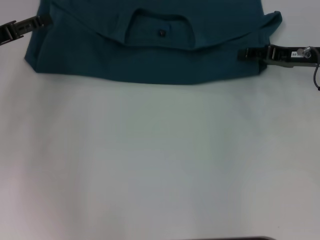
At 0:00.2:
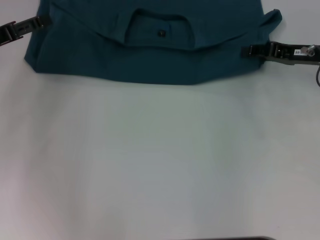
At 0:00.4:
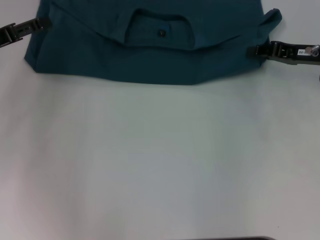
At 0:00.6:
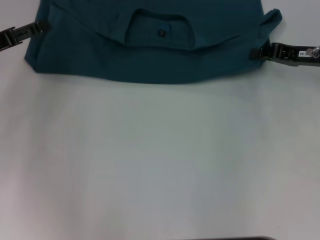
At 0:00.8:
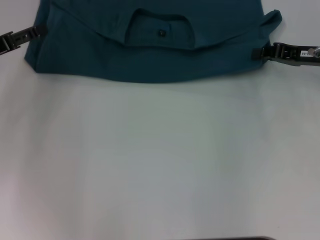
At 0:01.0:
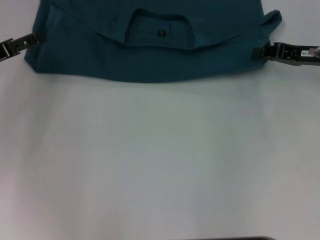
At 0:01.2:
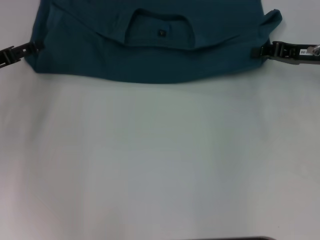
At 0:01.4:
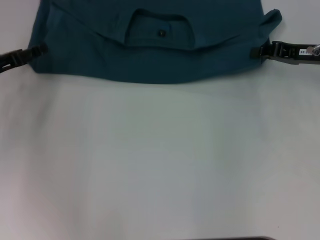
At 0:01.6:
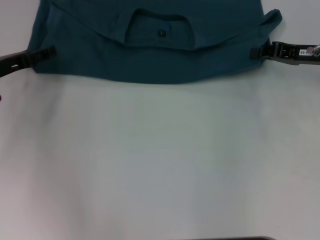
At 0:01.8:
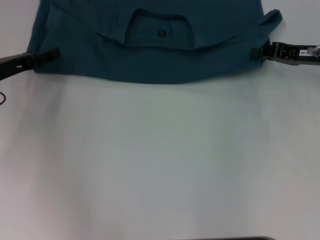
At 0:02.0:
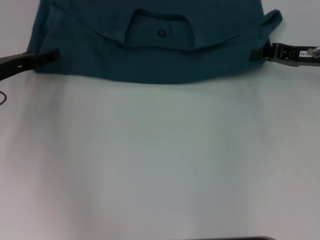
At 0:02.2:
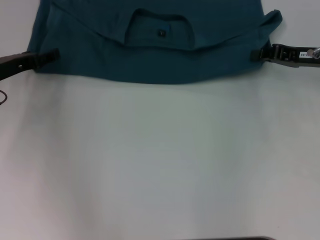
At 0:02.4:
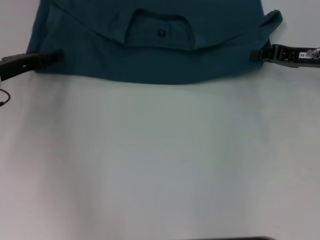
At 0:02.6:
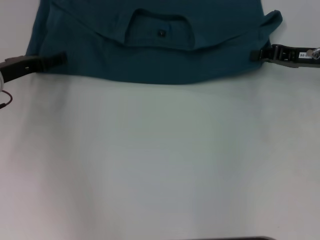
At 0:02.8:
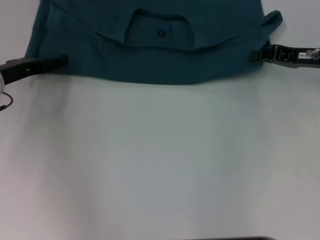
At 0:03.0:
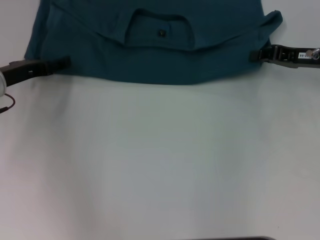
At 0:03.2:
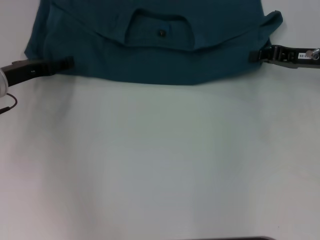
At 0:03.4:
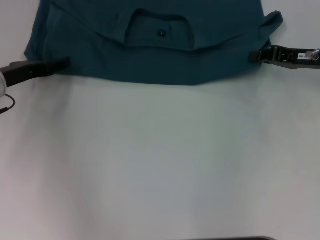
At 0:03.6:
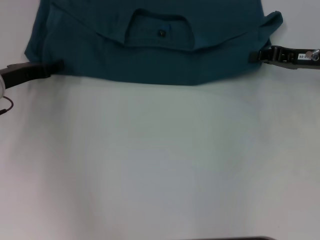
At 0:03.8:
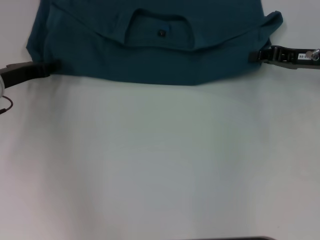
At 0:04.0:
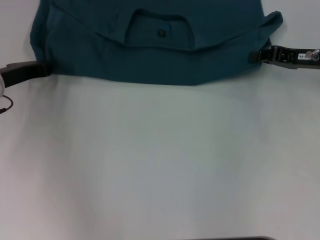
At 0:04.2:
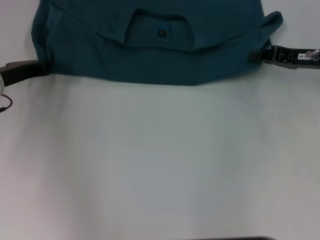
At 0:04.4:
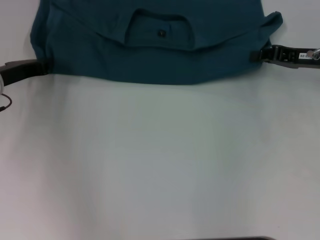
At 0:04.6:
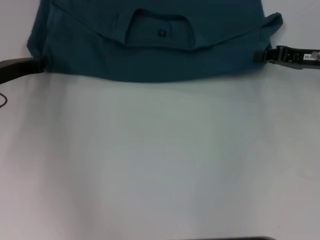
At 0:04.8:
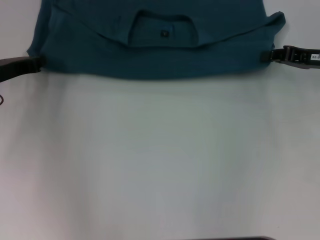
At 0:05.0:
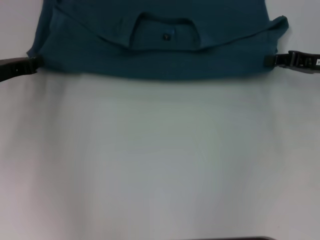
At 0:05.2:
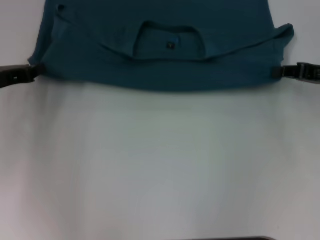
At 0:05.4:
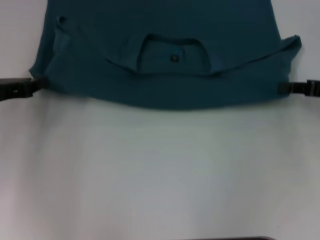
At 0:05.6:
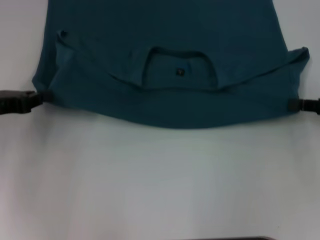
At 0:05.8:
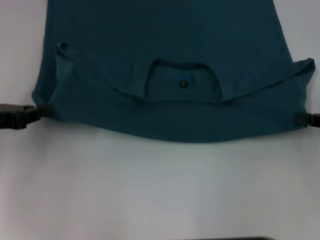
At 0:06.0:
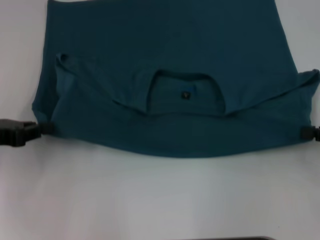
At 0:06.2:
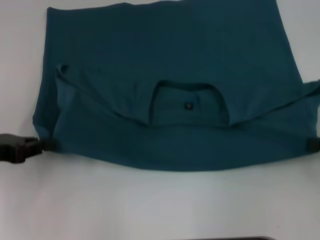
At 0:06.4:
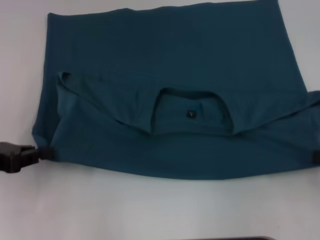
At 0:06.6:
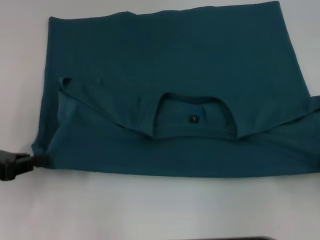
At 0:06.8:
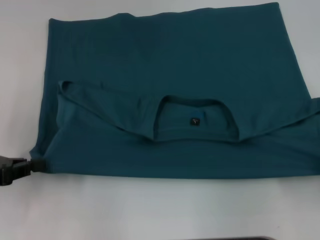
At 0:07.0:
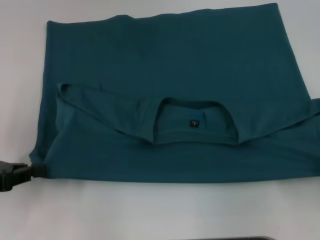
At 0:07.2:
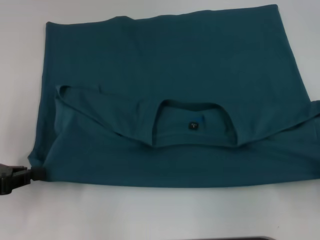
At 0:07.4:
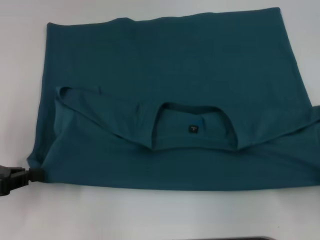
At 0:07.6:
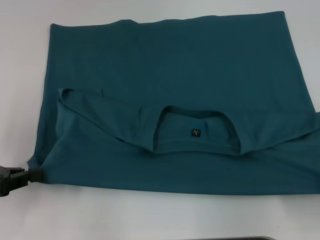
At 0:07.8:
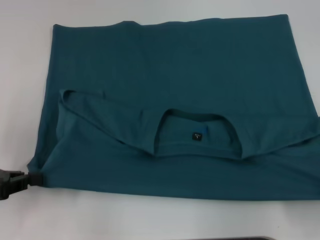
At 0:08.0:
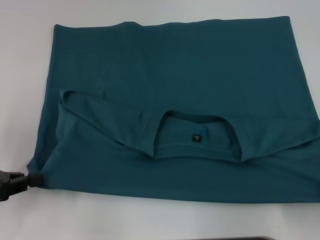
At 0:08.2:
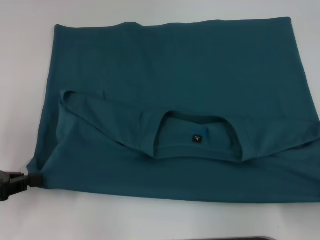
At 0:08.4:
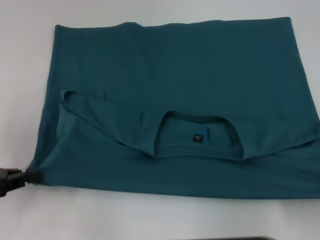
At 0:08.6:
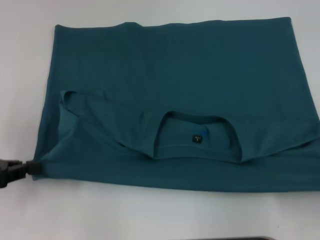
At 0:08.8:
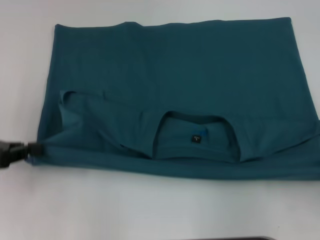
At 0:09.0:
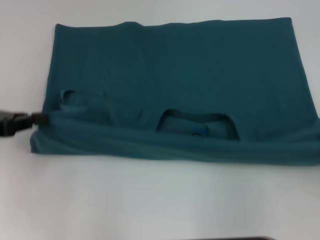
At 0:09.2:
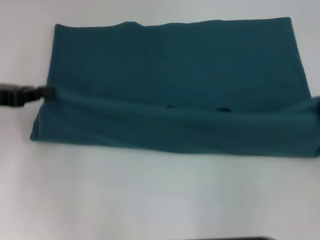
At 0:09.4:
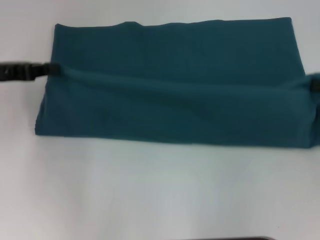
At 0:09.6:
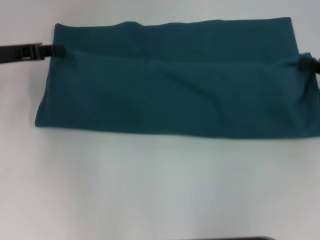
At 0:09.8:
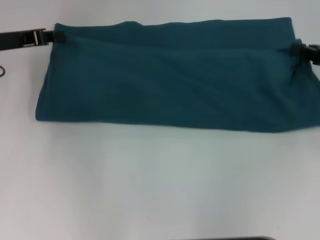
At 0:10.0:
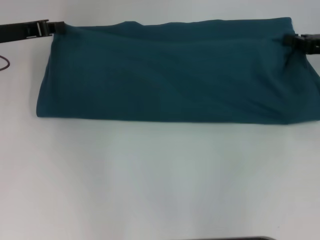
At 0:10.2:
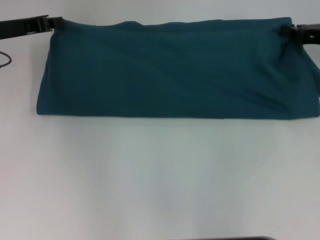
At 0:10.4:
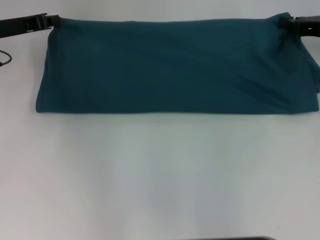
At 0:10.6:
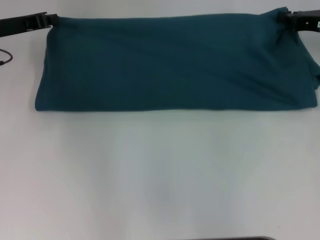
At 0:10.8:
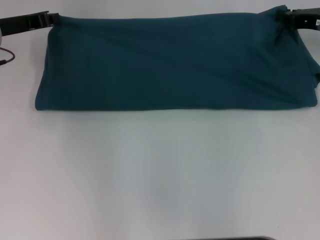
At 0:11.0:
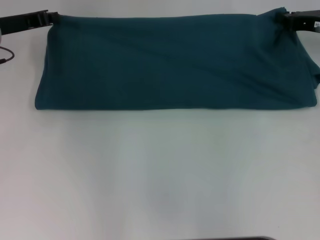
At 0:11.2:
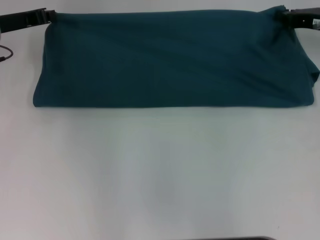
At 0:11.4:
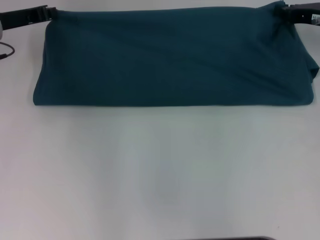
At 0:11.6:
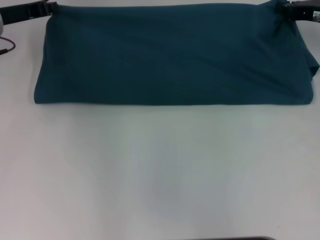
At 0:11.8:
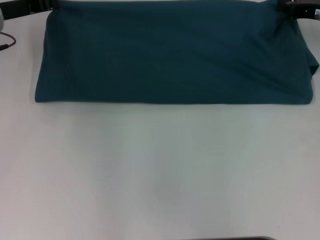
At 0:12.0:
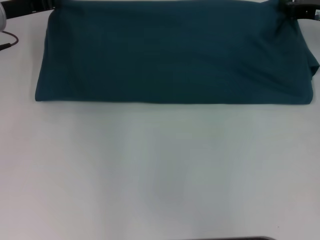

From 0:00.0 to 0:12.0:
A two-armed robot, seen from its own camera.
Step, from 0:00.0 to 0:08.2: Pull the clothes with your left hand.
Step, from 0:00.0 to 0:08.2: Pull the clothes with your right hand.
From 0:00.0 to 0:01.6: The right gripper closes.
From 0:01.6 to 0:03.0: The grippers move only a little.
From 0:03.0 to 0:04.4: The left gripper closes up.
From 0:04.4 to 0:06.0: The right gripper shifts roughly 15 cm backward and to the right. Meanwhile the left gripper goes about 10 cm backward.
From 0:06.0 to 0:07.6: The left gripper shifts roughly 5 cm backward. The right gripper moves backward, roughly 10 cm.
From 0:07.6 to 0:09.0: The right gripper changes place by roughly 5 cm, while the left gripper travels forward by roughly 5 cm.
From 0:09.0 to 0:10.4: The left gripper shifts about 15 cm forward and to the right; the right gripper travels forward by roughly 20 cm.
From 0:10.4 to 0:12.0: The grippers move only a little.

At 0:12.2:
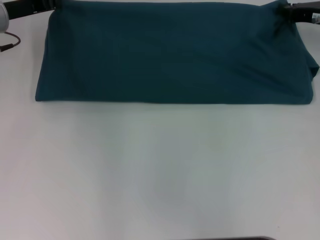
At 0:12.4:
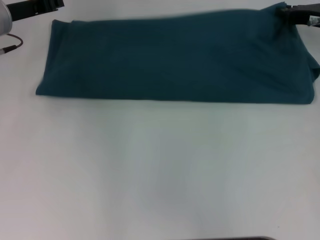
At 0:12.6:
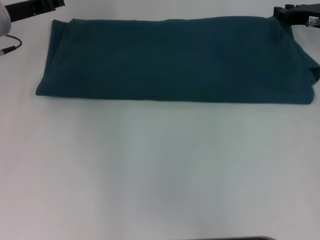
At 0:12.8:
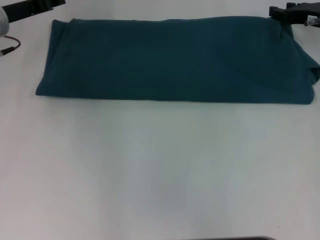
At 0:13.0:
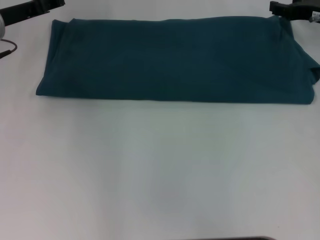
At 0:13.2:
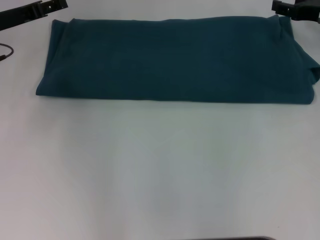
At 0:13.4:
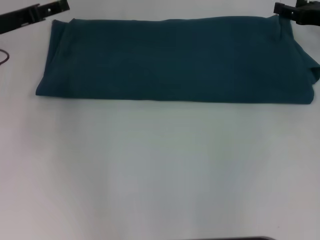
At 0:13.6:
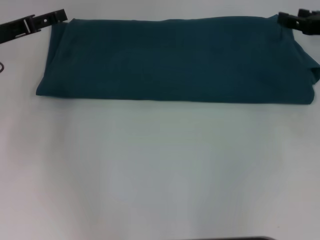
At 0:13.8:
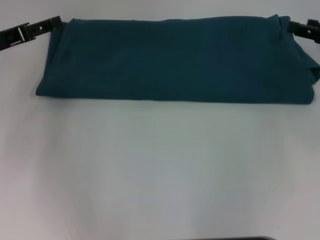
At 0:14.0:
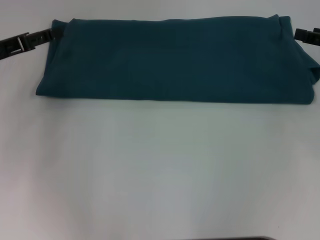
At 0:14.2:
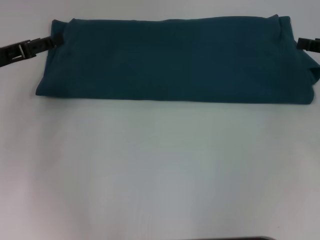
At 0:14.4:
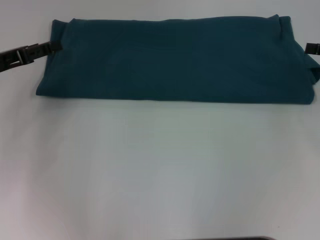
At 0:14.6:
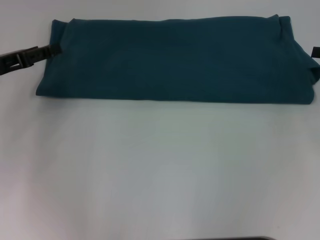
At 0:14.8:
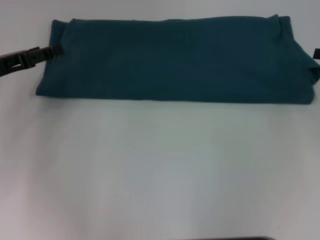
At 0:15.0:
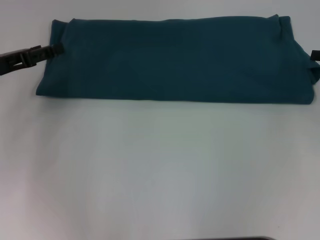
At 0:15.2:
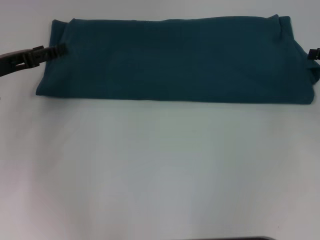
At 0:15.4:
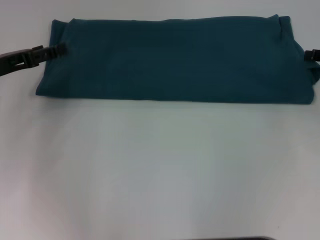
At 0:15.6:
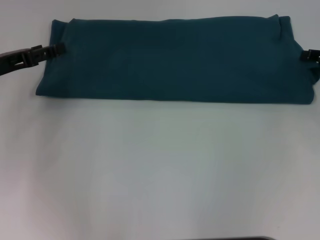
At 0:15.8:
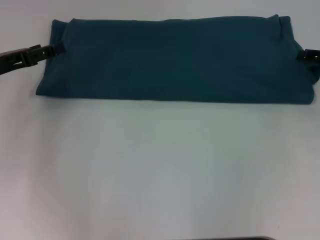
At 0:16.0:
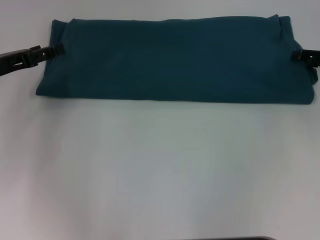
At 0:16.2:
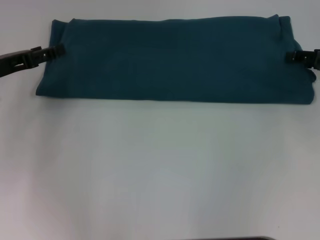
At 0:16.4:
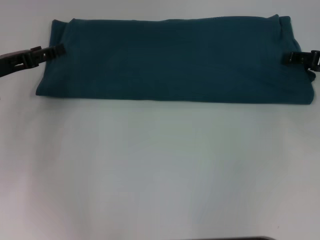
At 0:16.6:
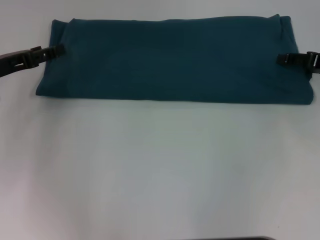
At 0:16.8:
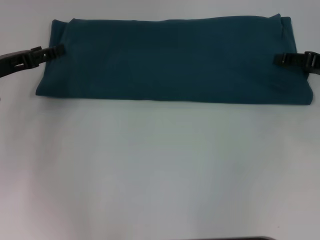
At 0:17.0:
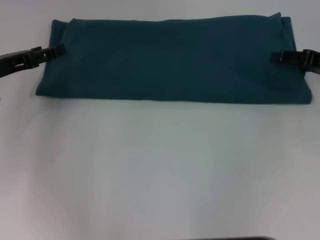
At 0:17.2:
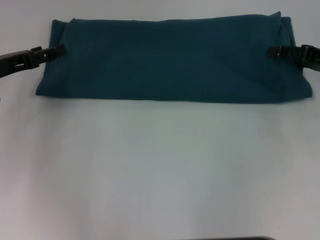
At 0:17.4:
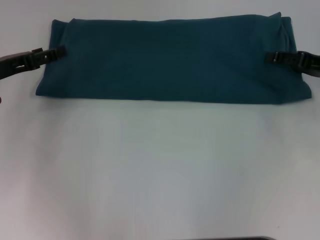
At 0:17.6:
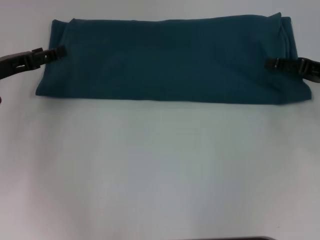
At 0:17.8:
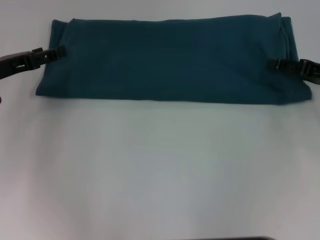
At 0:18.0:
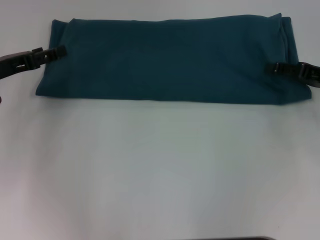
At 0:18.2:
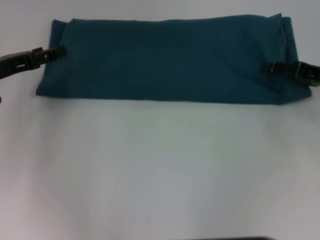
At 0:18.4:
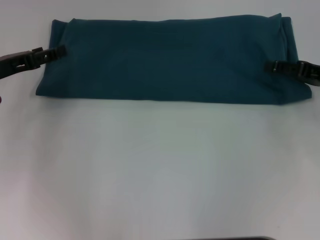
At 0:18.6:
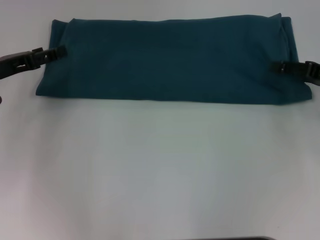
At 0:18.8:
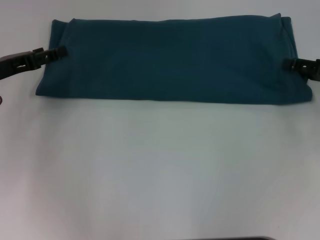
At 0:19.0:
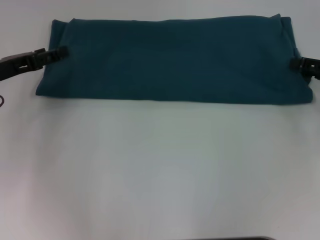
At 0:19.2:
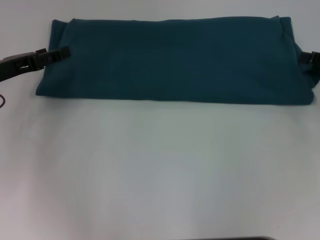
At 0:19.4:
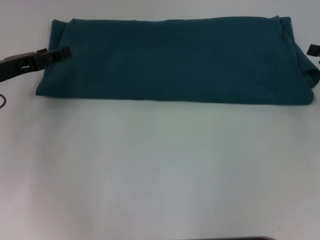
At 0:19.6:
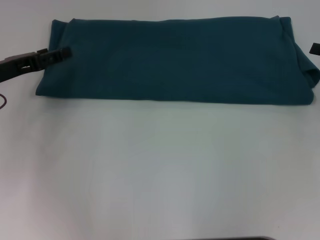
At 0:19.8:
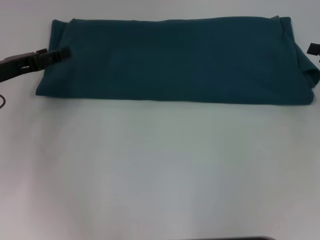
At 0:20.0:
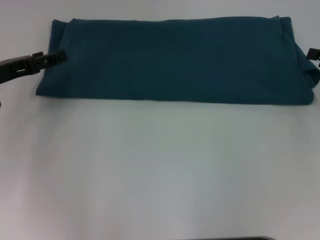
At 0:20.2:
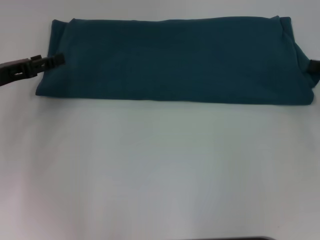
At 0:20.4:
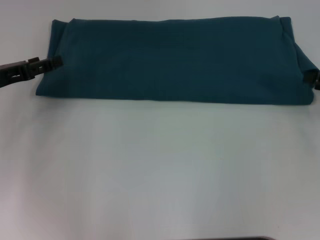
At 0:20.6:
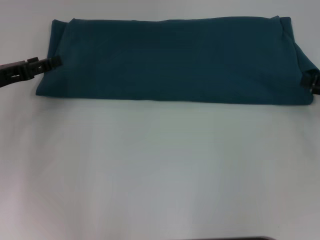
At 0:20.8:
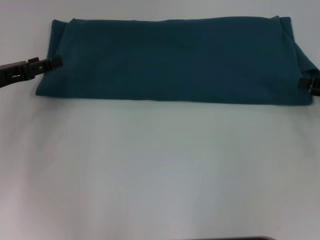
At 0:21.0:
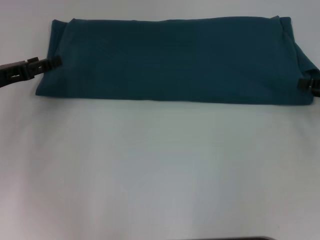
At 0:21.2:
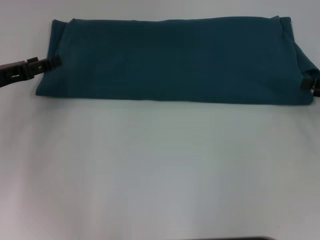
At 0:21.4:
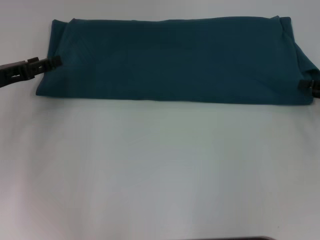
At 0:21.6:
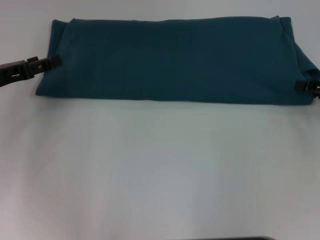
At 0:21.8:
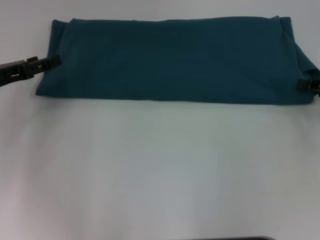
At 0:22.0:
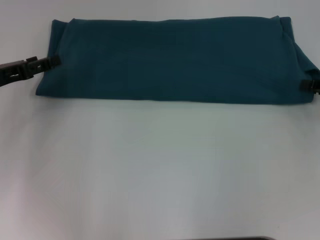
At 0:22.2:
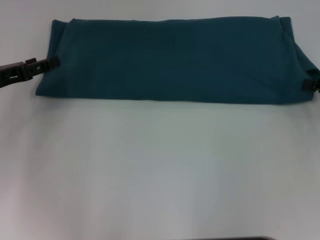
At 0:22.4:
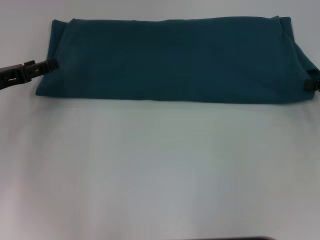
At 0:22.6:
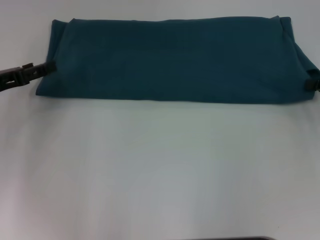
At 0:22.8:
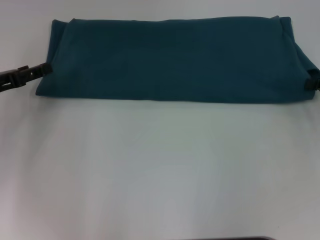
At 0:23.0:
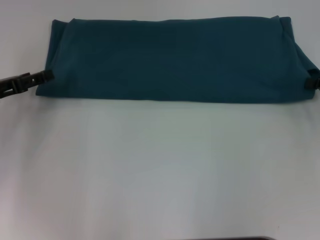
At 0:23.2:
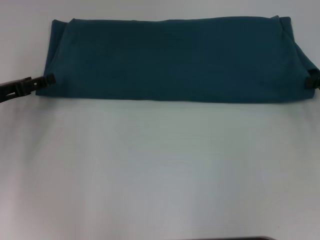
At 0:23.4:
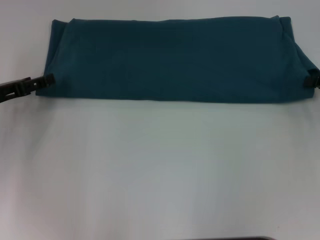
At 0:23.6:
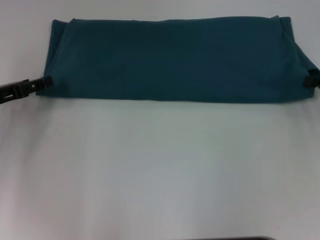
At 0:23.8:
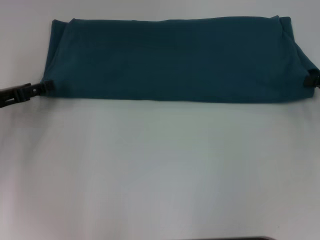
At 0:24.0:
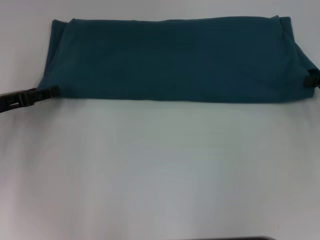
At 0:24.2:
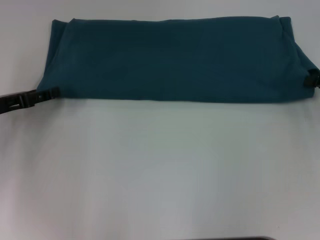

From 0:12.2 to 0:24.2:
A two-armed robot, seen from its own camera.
From 0:12.2 to 0:13.8: Both grippers move backward, some 5 cm. The right gripper opens its fingers; the left gripper opens its fingers.
From 0:16.6 to 0:18.2: The grippers make only small movements.
From 0:18.2 to 0:19.8: The right gripper heads to the right, covering about 5 cm.
From 0:19.8 to 0:21.2: There are only small adjustments of the grippers.
From 0:22.6 to 0:24.2: The grippers stay close to where they were, moving slightly.
